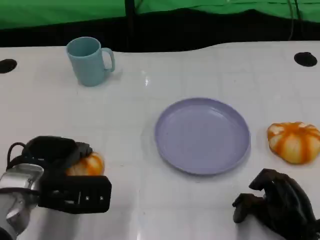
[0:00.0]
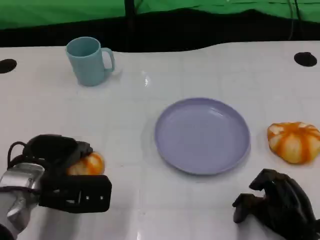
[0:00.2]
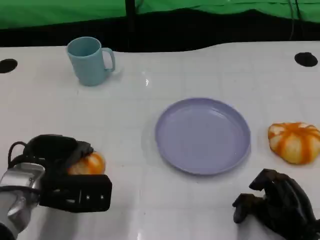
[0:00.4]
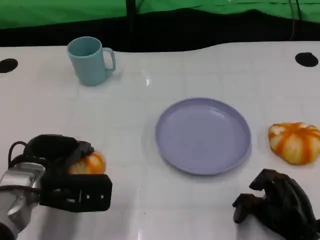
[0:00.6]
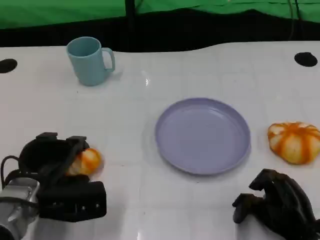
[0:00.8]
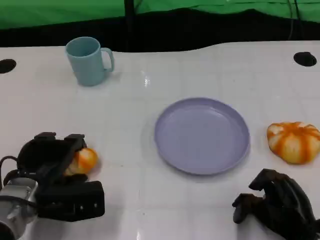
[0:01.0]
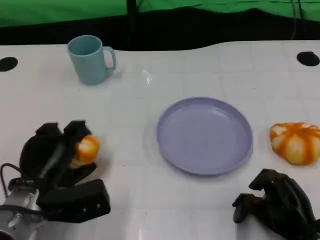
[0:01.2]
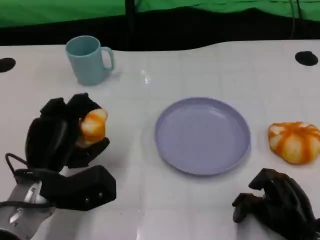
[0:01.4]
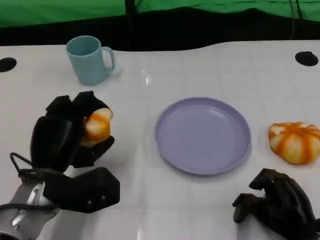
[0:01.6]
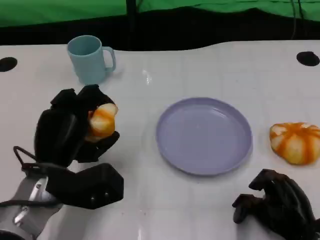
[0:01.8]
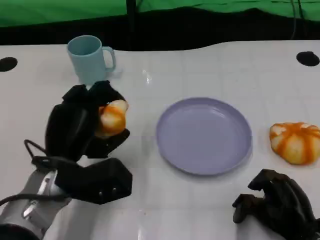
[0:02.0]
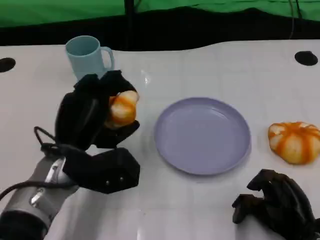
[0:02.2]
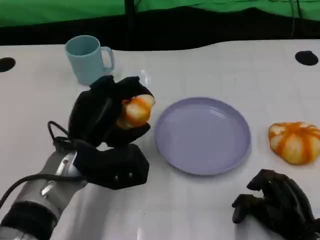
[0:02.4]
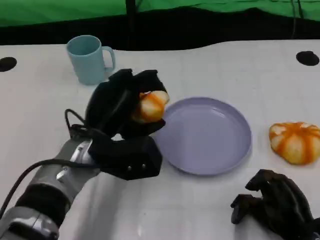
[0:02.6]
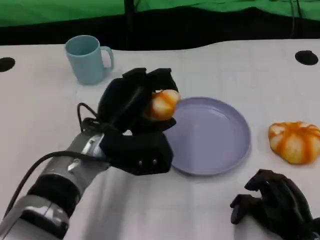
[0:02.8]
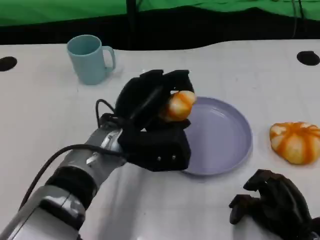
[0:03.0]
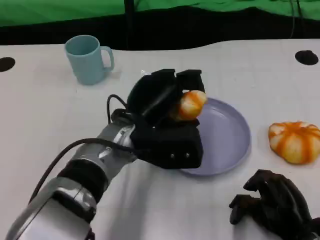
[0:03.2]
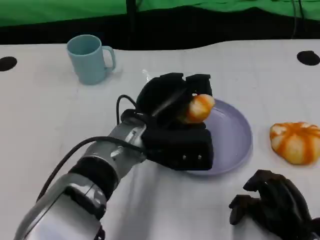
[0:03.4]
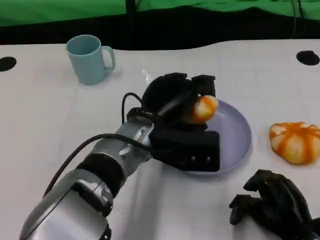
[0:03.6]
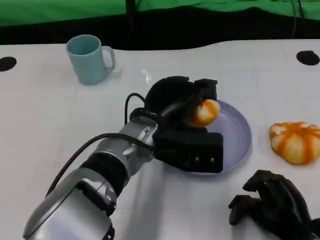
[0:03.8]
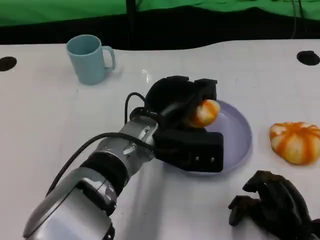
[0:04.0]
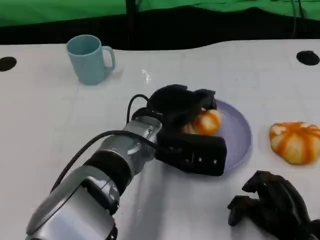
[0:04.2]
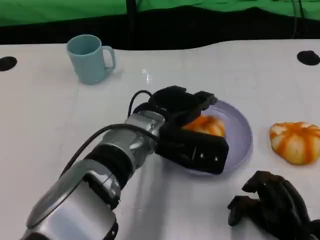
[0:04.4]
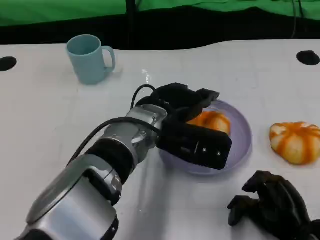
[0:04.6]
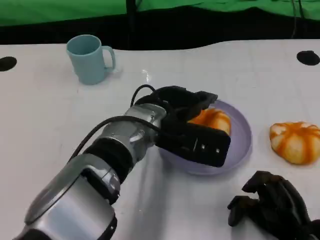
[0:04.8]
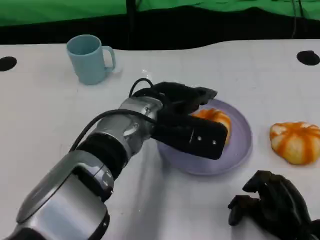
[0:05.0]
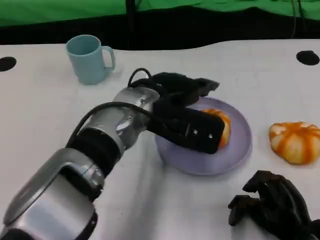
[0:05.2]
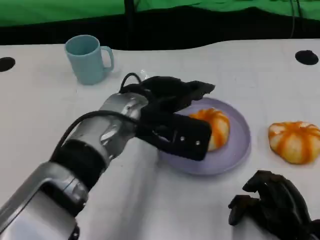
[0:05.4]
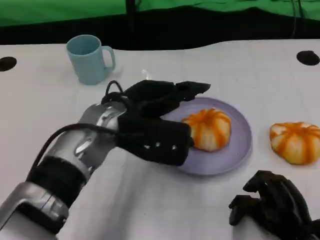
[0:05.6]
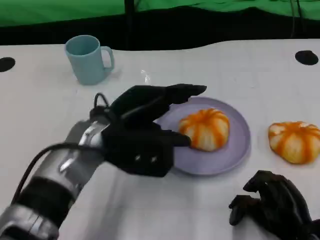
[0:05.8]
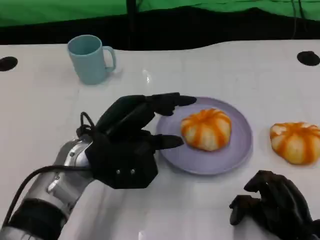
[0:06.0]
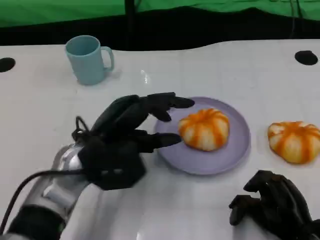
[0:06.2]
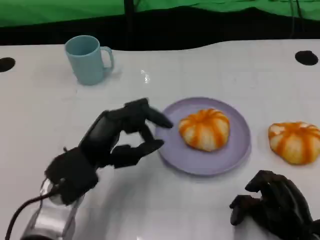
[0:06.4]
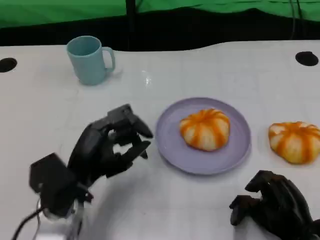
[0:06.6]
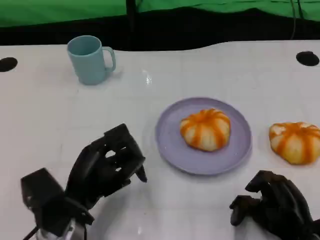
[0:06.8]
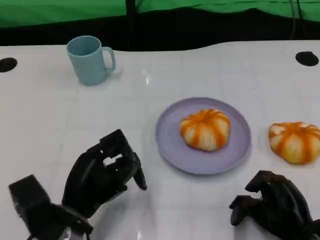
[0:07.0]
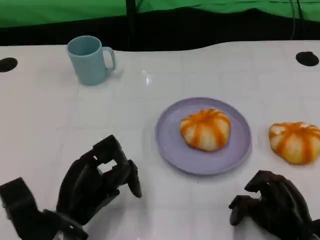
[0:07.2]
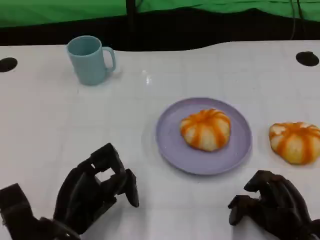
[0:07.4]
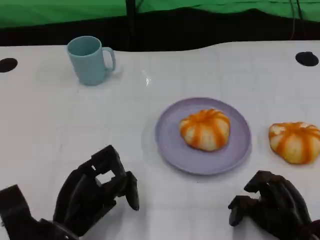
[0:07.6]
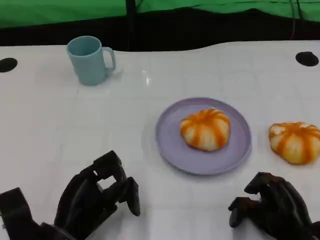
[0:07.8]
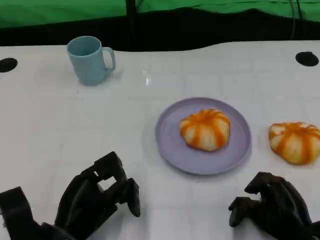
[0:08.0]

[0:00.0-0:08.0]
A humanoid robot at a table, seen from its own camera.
Task of the whole recording: Grasp the bread from the table and place it into the plate.
1.6 to 3.2 s: The left hand shifts some 15 cm to the right and forward.
4.8 to 6.4 s: The left hand travels to the left, backward and downward by some 15 cm.
6.4 to 8.0 s: The left hand moves backward and downward, some 10 cm.

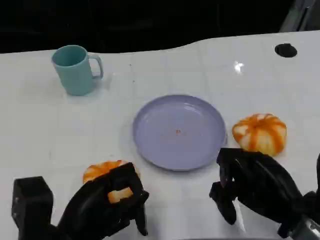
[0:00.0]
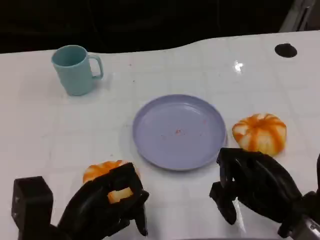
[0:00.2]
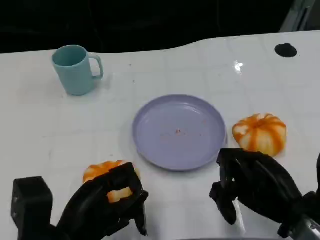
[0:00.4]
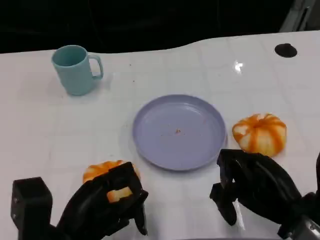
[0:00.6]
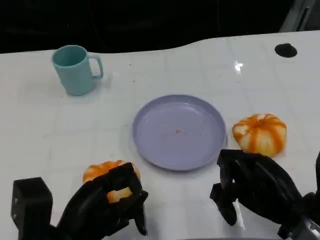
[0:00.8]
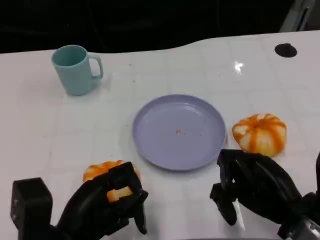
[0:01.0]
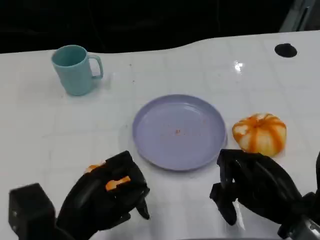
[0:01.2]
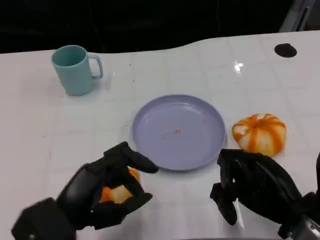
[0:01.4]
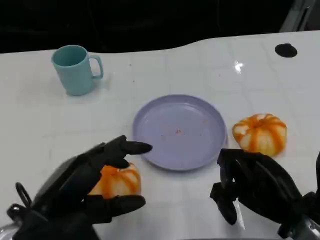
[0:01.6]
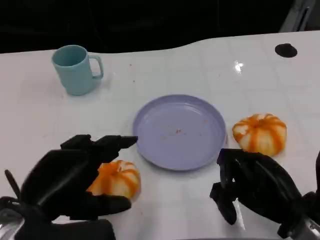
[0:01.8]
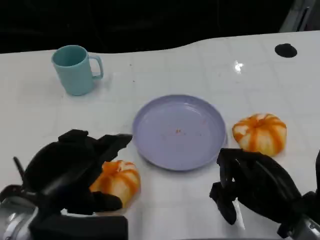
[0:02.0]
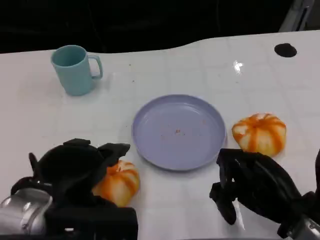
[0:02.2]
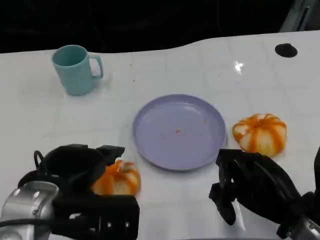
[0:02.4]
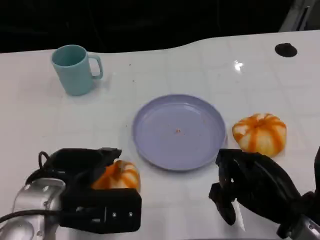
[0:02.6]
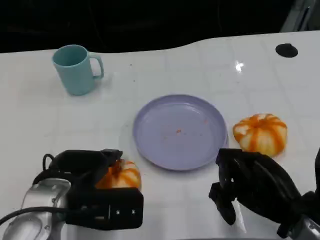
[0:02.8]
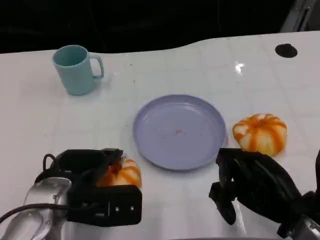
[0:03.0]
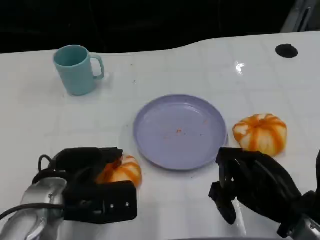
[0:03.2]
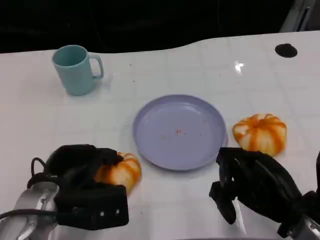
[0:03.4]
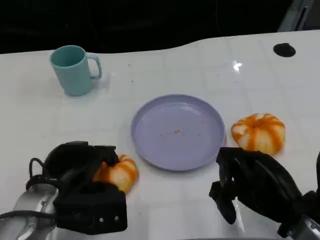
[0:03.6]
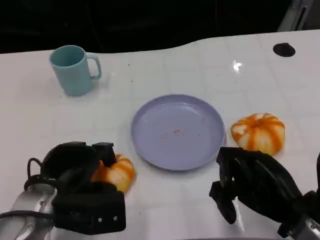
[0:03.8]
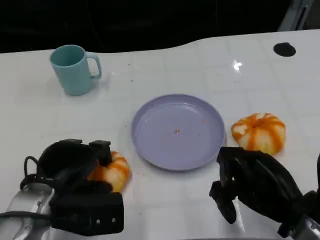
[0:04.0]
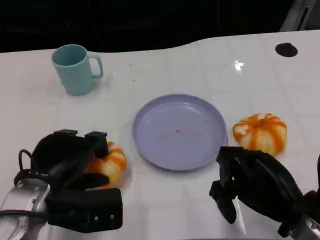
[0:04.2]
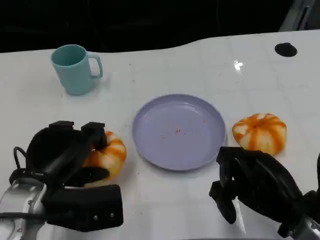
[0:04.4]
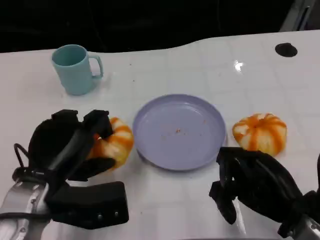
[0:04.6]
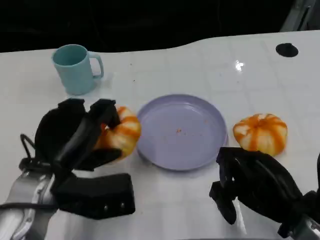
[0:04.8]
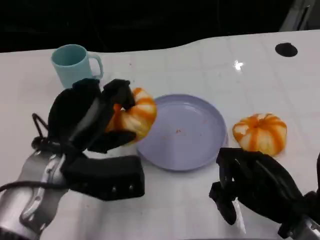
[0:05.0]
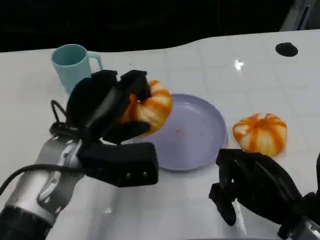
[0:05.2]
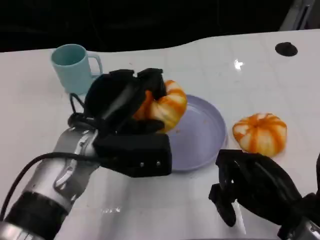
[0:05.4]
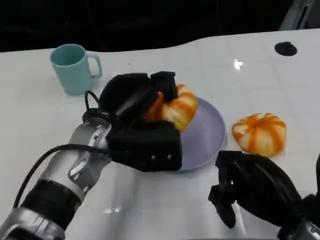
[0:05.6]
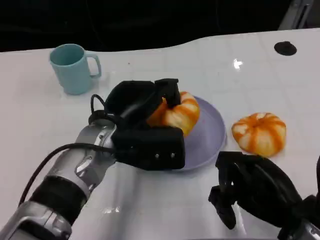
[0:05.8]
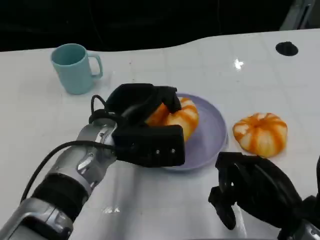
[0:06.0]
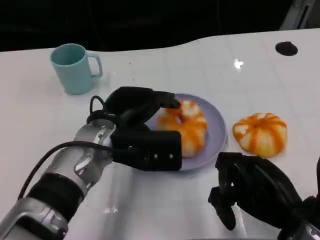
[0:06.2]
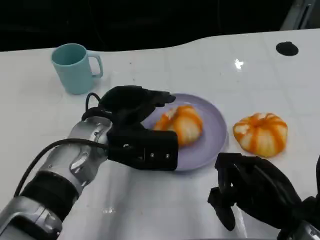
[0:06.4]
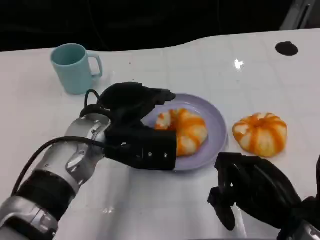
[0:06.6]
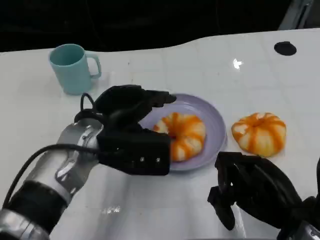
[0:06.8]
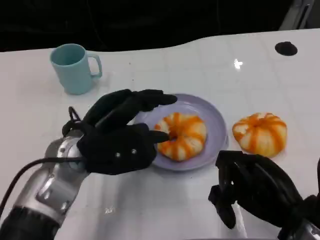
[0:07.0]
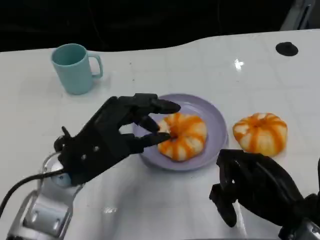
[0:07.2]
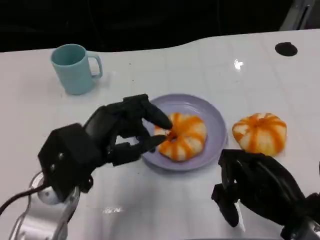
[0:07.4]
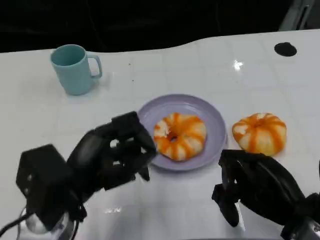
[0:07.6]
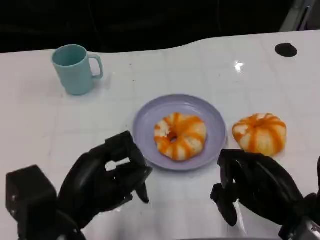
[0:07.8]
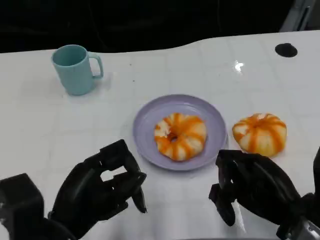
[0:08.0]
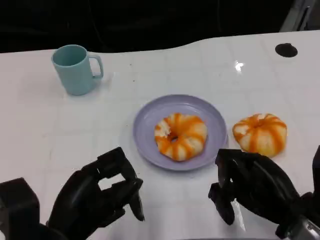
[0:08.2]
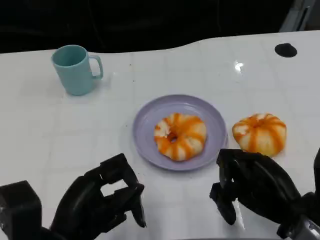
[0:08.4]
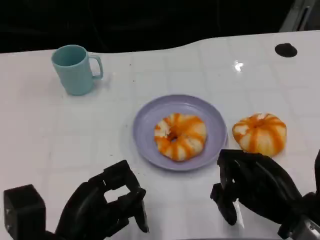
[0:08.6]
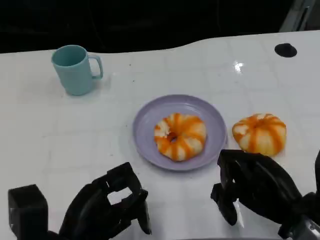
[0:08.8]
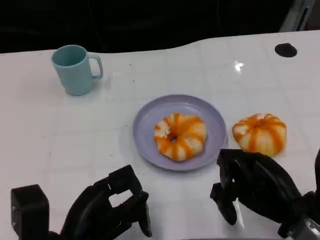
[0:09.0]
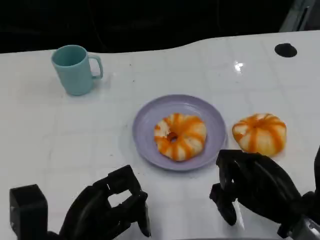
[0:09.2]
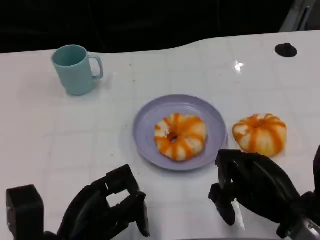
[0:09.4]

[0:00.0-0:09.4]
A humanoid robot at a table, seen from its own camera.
Task of the whole recording: Grasp the bread from the table and place it into the plate.
0.0 to 1.6 s: The left hand moves upward, roughly 5 cm.
1.6 to 3.2 s: The left hand shifts approximately 10 cm forward and downward.
4.8 to 6.2 s: The left hand moves to the right and forward, approximately 10 cm.
6.2 to 7.8 s: The left hand goes some 15 cm backward and to the left.
7.8 to 9.4 s: The hands stay close to where they were, moving slightly.

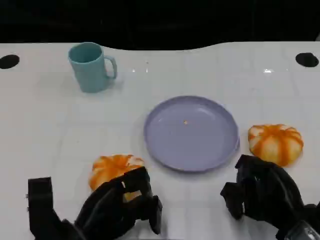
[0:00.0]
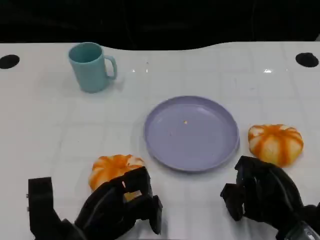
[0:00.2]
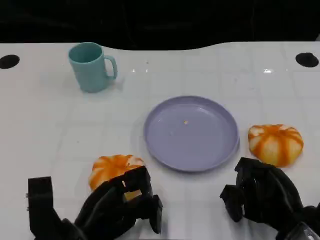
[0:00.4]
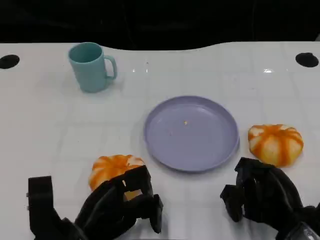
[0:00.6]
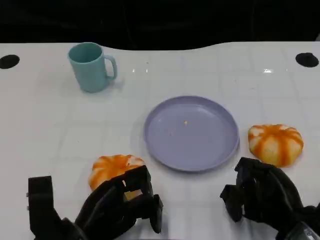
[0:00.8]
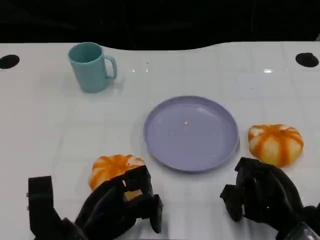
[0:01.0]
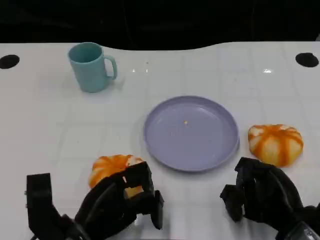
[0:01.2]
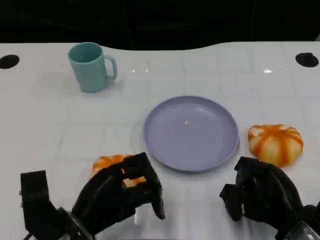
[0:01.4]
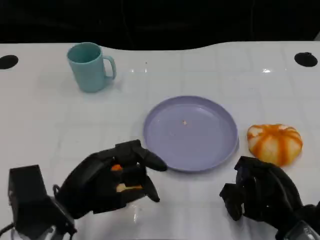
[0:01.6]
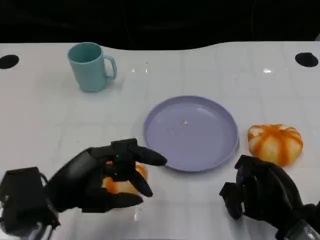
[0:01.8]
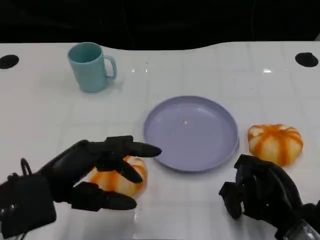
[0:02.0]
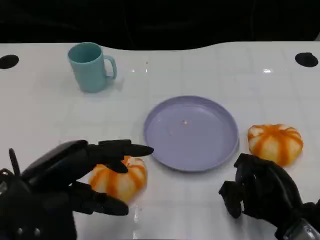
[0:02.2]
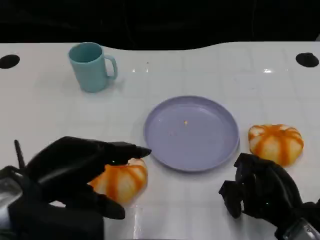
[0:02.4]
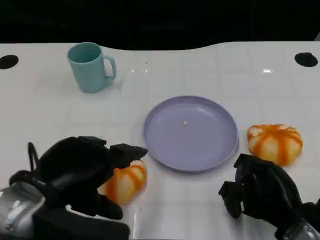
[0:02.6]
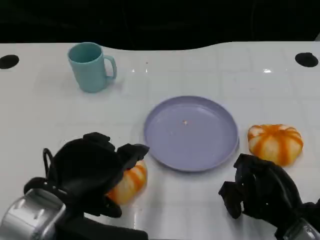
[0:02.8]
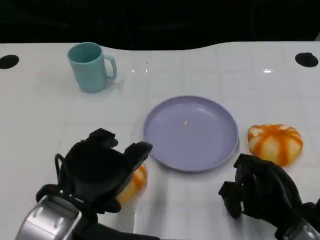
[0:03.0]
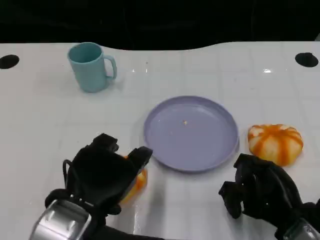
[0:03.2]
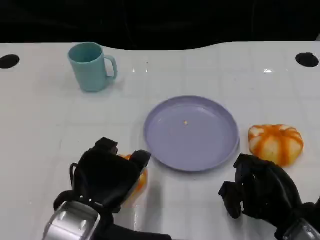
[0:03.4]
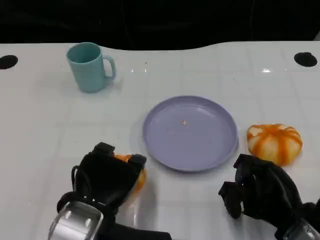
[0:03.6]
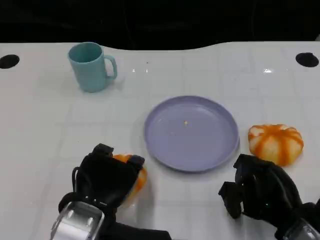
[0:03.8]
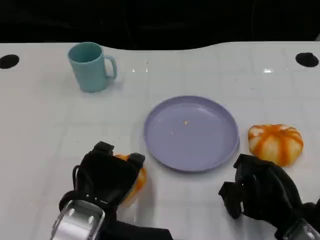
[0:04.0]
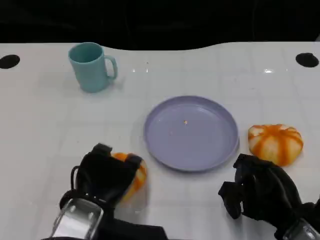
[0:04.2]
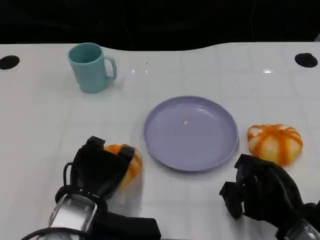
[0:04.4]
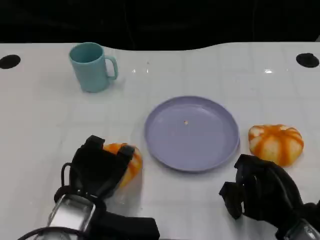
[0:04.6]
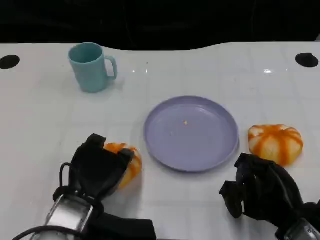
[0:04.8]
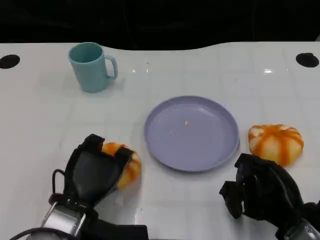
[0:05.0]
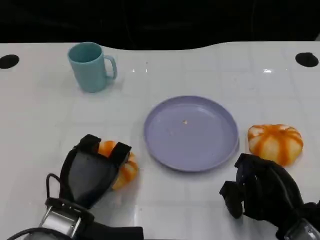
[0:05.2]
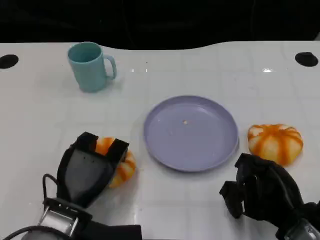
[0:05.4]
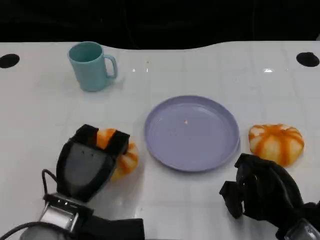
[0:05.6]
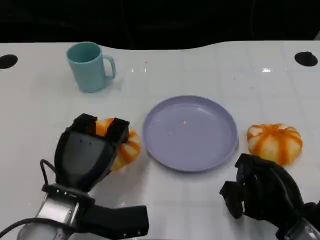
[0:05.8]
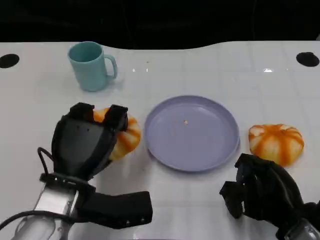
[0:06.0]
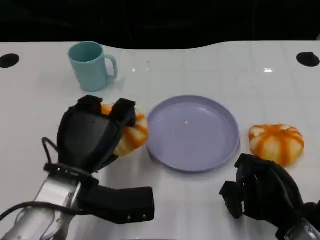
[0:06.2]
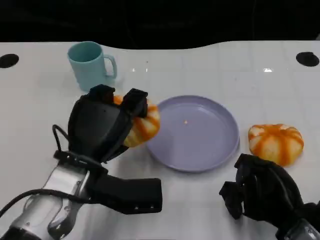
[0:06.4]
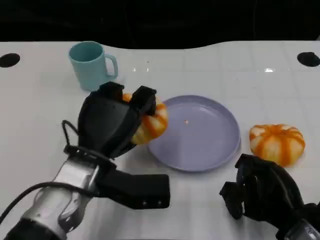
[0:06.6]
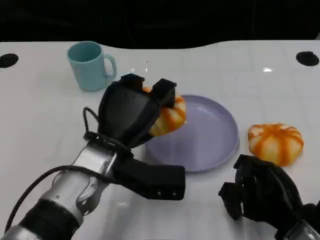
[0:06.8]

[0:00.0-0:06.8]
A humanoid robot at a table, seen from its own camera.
Task of the whole recording: Grasp the bread from the table and place it into the plate.
0.0 to 1.4 s: The hands stay close to where they were, moving slightly.
1.4 to 2.8 s: The left hand moves upward, about 10 cm.
2.8 to 4.0 s: The left hand ends up about 5 cm from where it was.
4.0 to 5.4 s: The left hand goes some 10 cm downward.
5.4 to 6.8 s: The left hand travels upward and to the right by some 10 cm.
